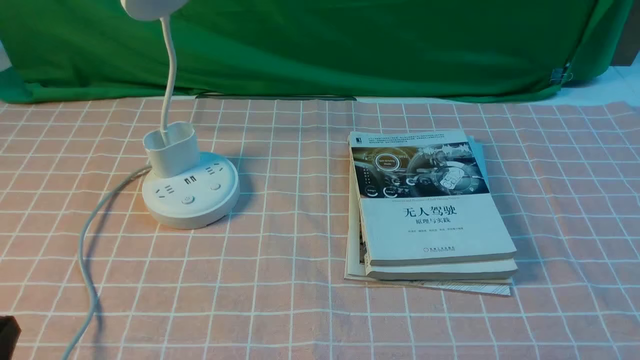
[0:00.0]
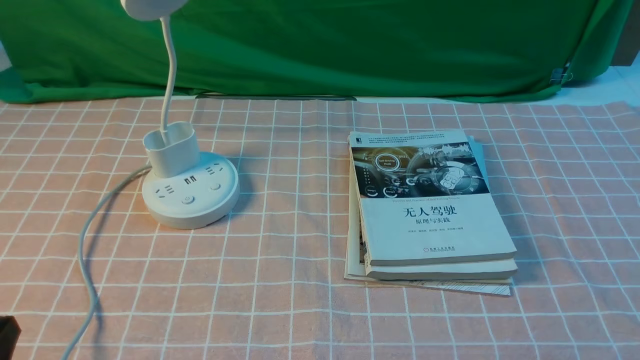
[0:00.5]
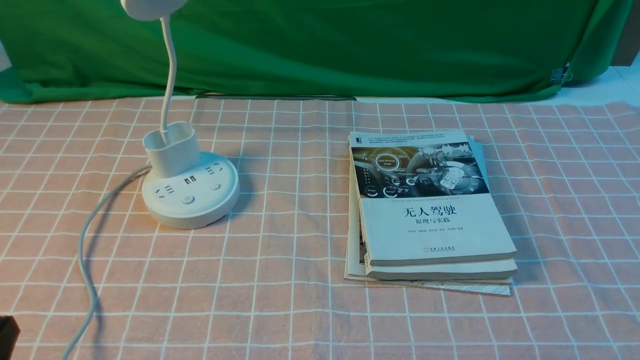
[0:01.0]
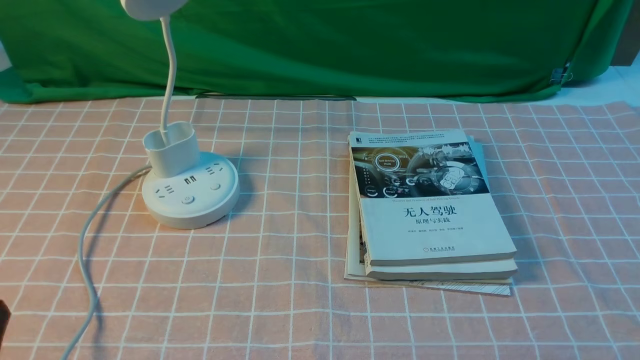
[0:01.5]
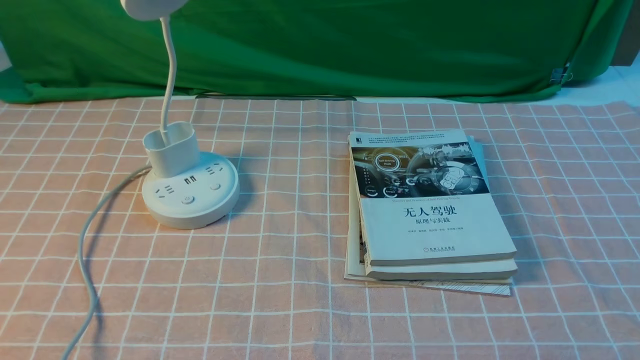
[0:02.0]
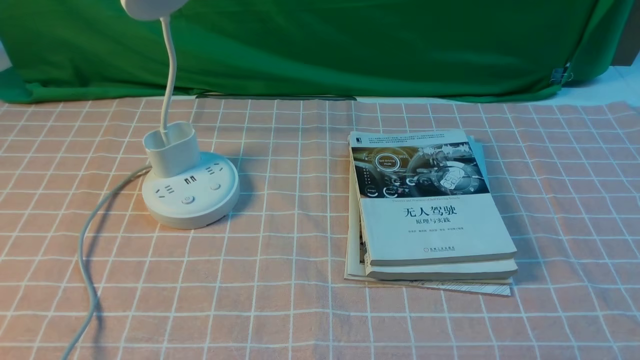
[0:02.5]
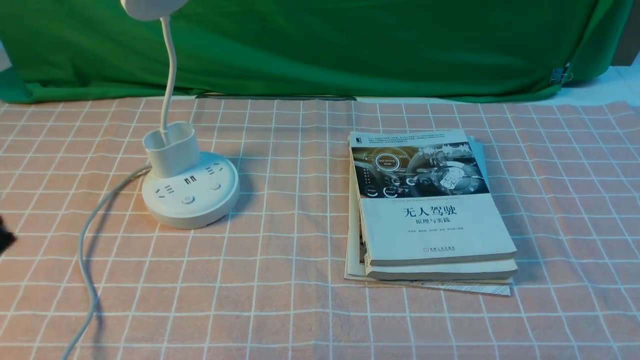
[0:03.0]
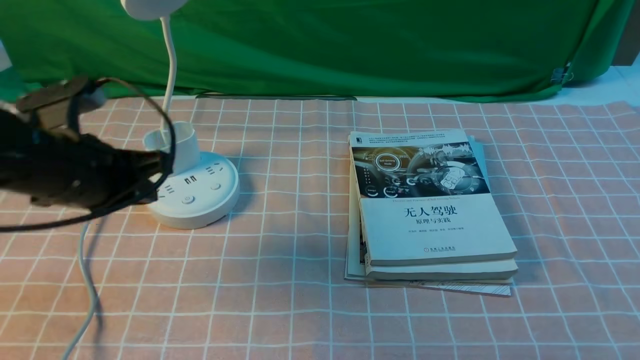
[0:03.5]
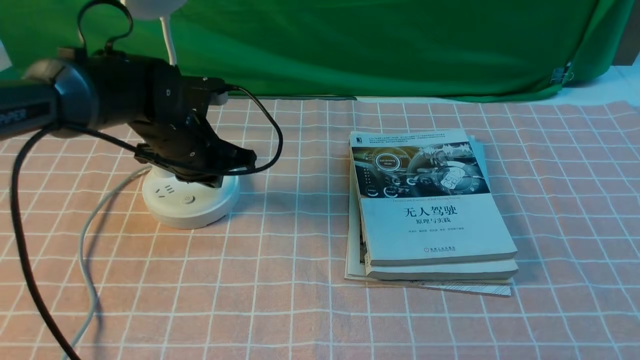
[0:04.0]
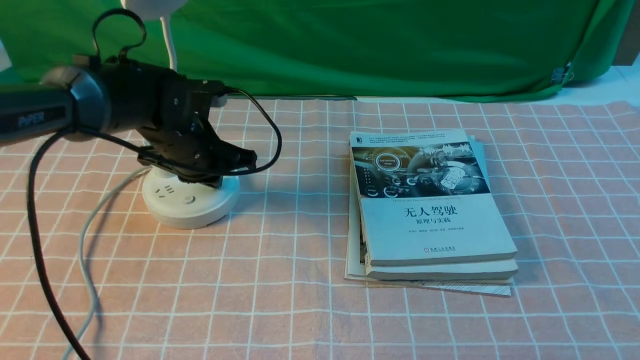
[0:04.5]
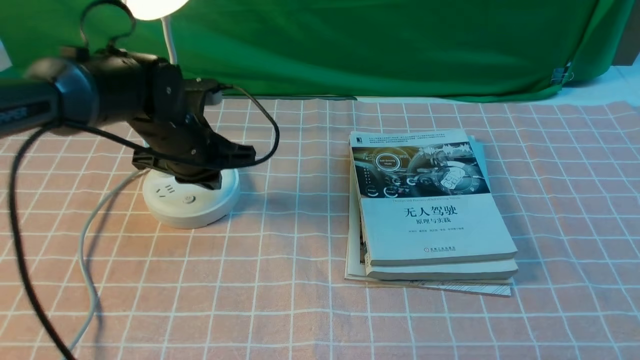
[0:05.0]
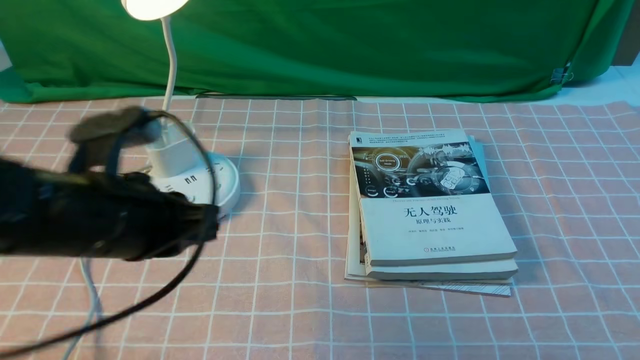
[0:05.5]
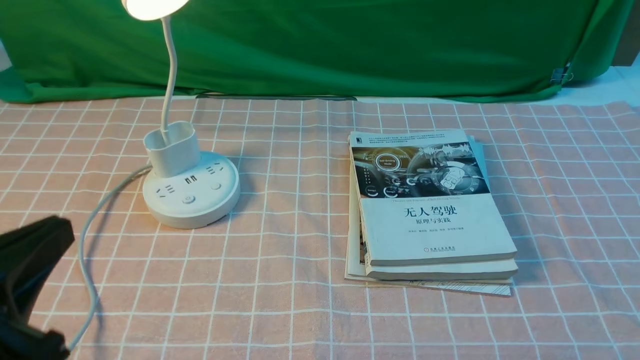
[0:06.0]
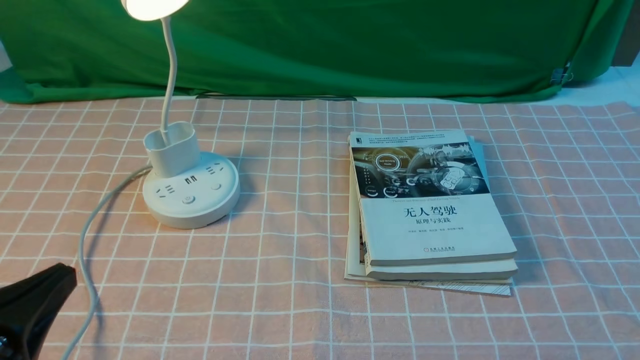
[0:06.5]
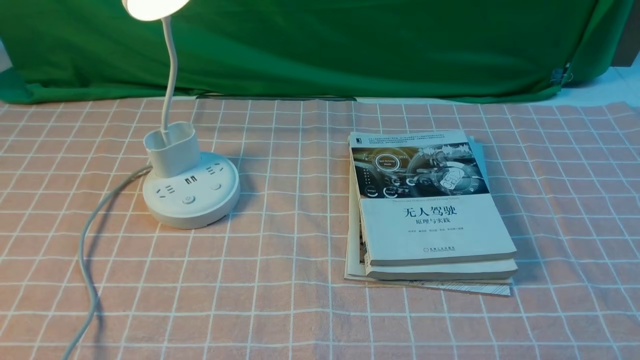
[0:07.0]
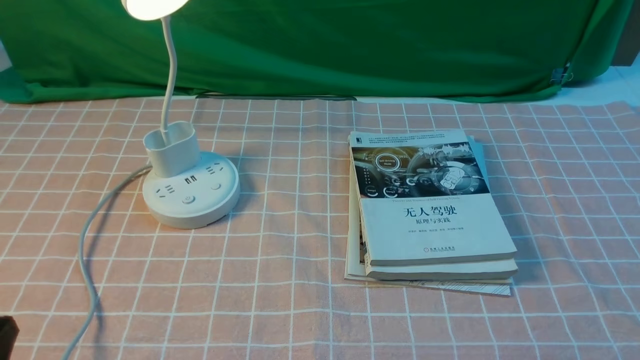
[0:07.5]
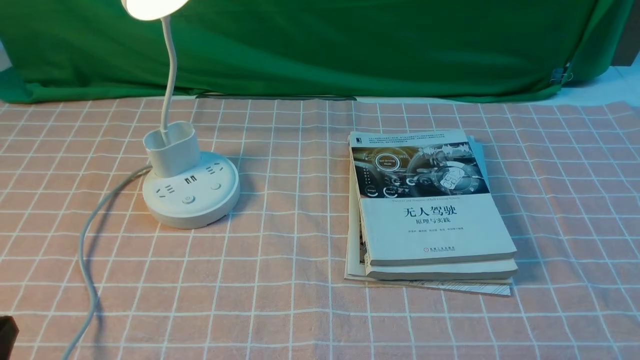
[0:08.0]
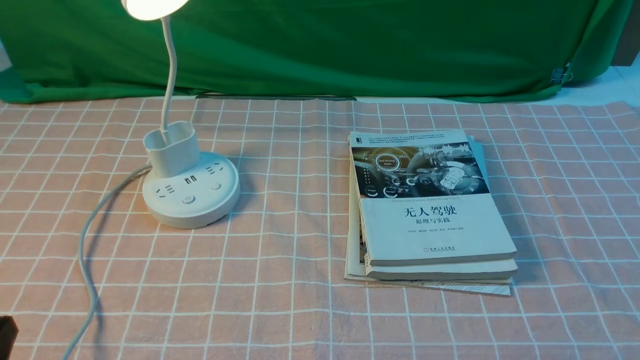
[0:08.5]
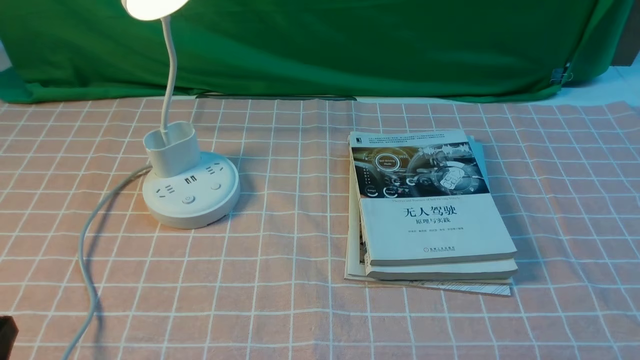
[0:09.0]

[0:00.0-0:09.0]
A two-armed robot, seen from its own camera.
Step, 0:00.0 to 0:05.0: use the left arm to press the button switch on the lamp holder.
0:02.0 to 0:04.5: The left gripper heads forward, covering some 35 cm.
0:04.5 to 0:07.0: The left gripper travels backward by approximately 35 cm, while the right gripper opens.
